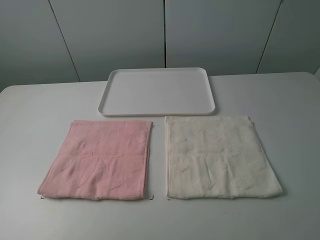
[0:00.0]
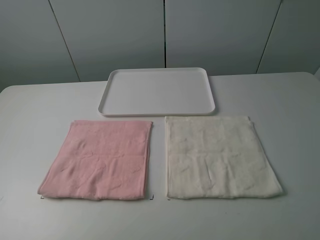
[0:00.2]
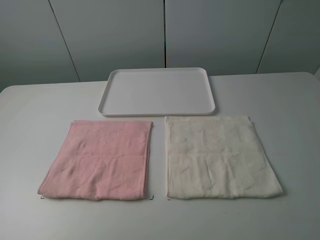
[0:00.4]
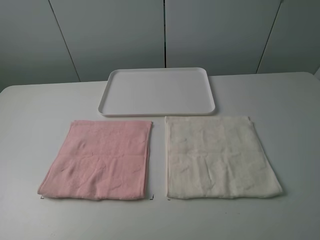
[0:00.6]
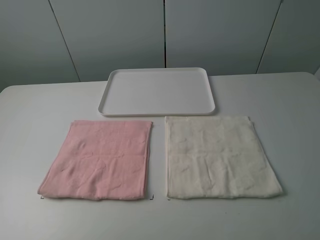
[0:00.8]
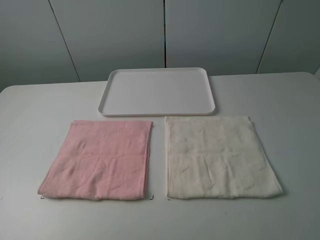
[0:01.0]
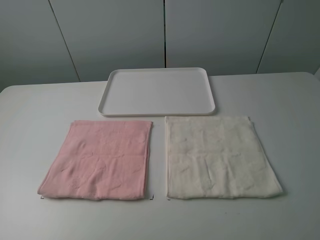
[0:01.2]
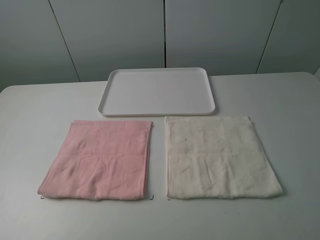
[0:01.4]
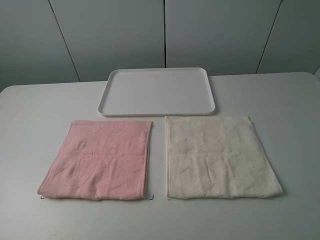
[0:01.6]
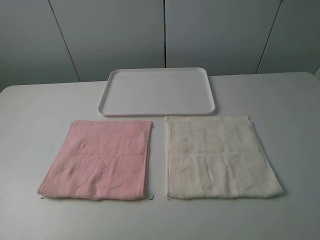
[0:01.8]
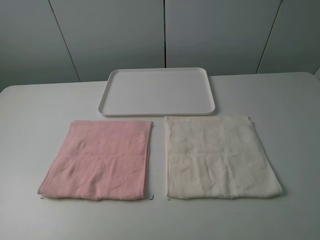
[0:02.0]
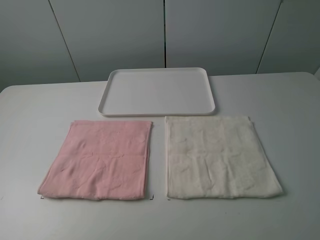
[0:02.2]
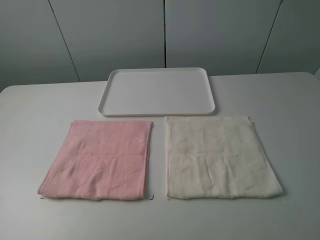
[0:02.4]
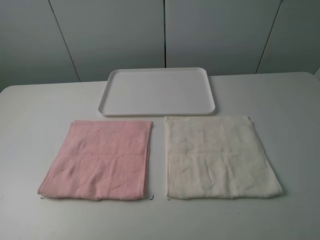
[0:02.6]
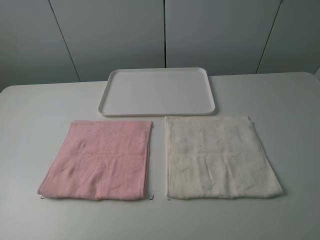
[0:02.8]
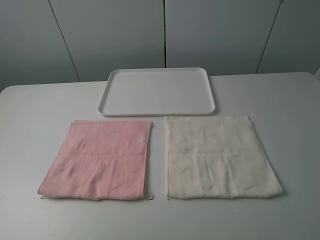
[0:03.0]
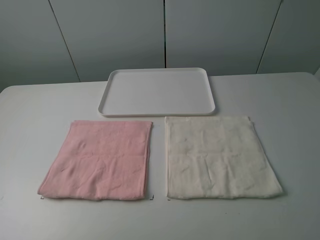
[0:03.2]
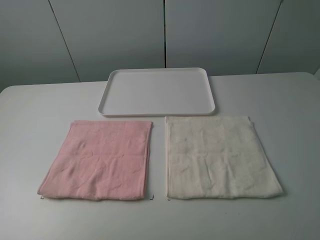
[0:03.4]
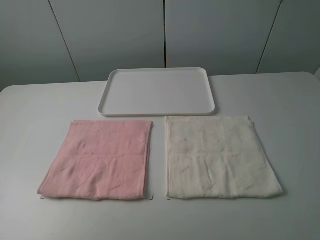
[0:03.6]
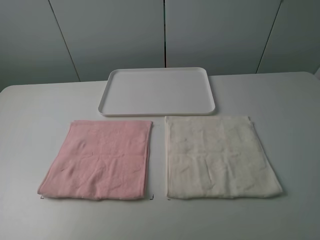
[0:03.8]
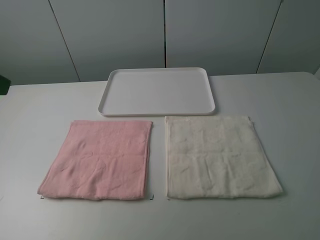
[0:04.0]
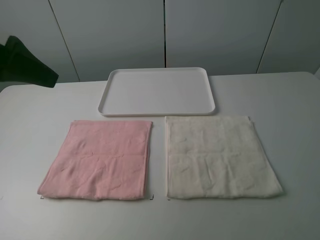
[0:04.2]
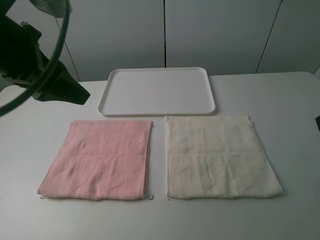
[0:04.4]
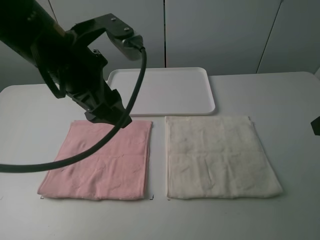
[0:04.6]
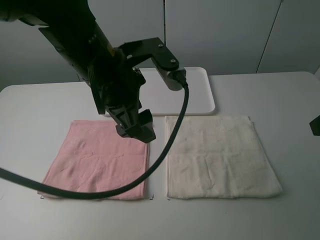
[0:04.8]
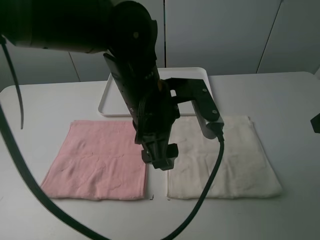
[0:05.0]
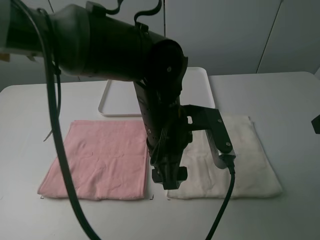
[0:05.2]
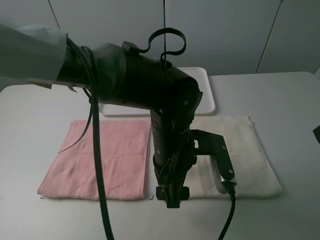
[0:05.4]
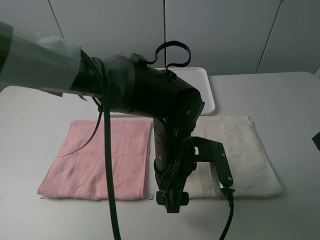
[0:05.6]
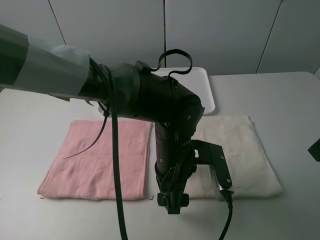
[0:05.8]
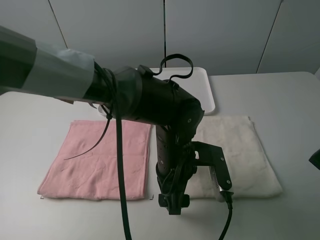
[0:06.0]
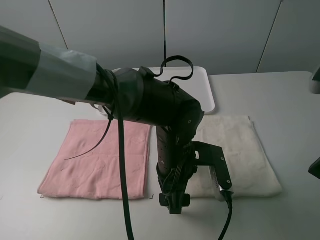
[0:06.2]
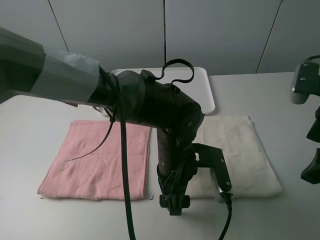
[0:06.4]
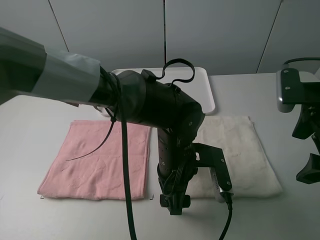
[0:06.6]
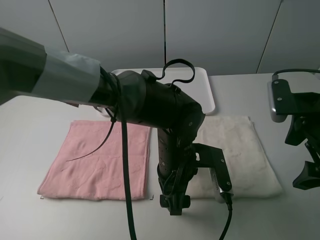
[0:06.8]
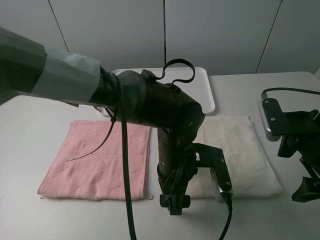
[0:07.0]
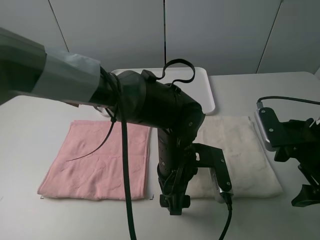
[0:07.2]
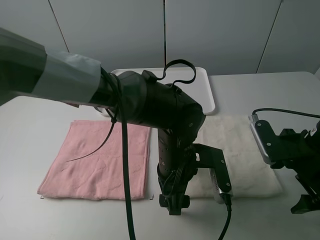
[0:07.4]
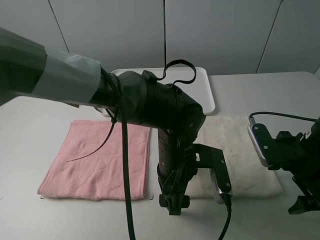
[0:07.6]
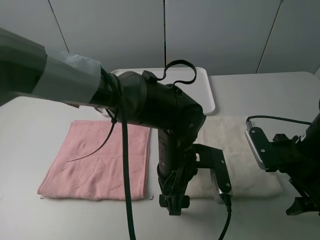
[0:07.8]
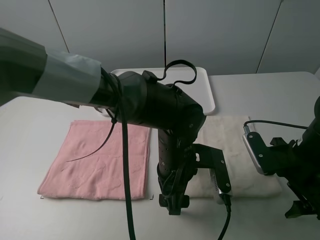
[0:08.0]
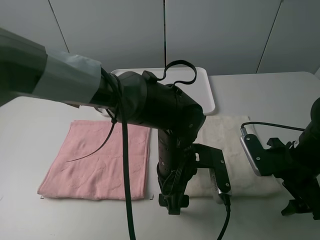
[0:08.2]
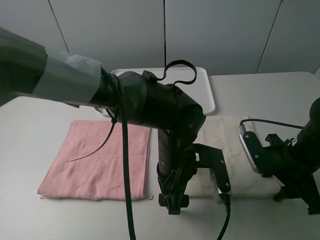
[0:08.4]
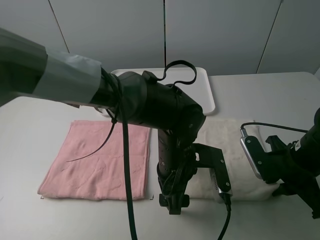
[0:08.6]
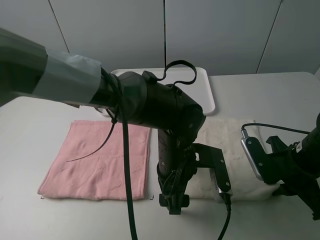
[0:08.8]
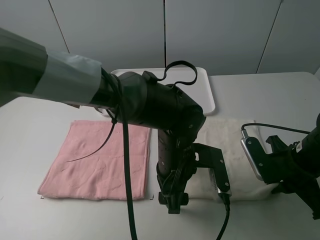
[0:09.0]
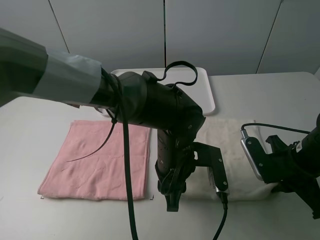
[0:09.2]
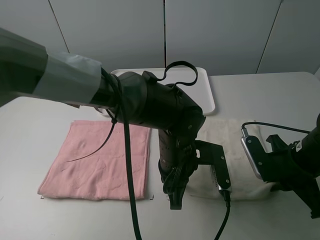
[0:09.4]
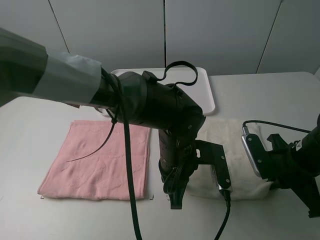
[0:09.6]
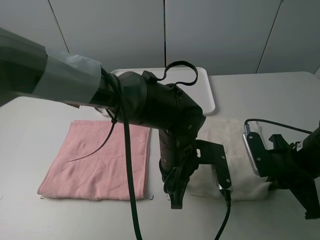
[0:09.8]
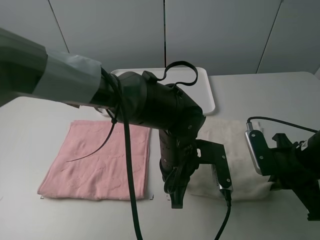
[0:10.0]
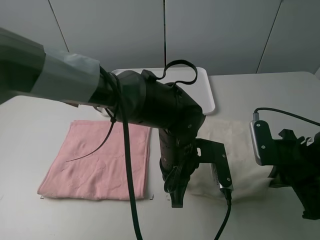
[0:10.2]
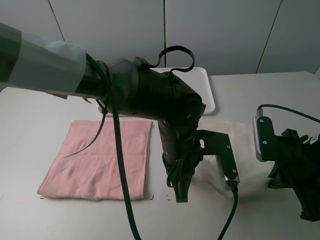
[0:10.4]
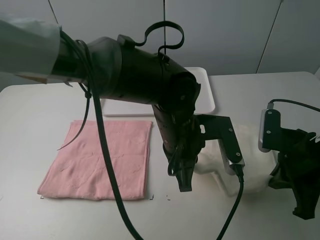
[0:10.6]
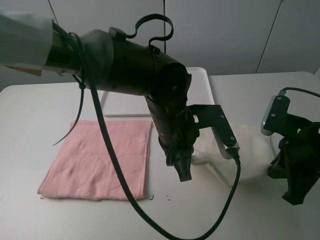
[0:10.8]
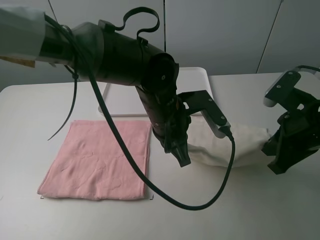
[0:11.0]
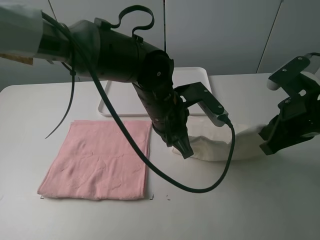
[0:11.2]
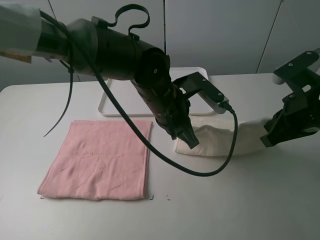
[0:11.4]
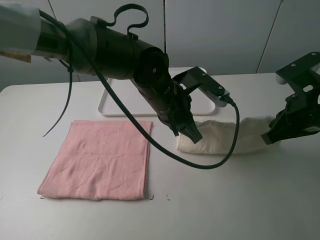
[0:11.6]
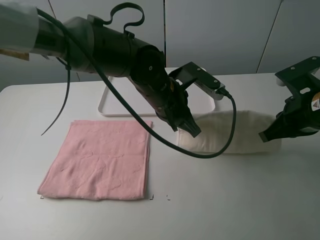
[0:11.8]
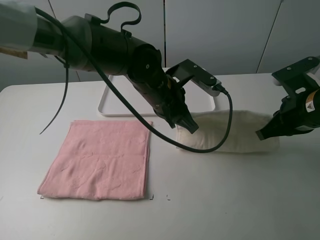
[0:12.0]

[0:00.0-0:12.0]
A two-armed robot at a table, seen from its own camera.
Task of the whole recording: fold one of the towels by two grippers and place it on the tray,then fold another towel by two grippers and place it on the folded towel.
Step, 0:00.0 to 0:09.4: Grasp the white towel with the left gripper.
0:00.0 to 0:03.0: The two grippers keep their place.
0:03.0 to 0:04.4: The left gripper moves forward and to the right, roughly 25 cm.
0:04.4 to 0:06.0: The left gripper travels to the right and downward by approximately 30 cm.
0:06.0 to 0:07.6: The right gripper heads downward, covering approximately 15 cm.
0:07.6 to 0:09.0: The right gripper closes.
0:09.0 to 0:10.4: The left gripper closes its fingers.
0:10.4 to 0:12.0: The grippers both shift forward by about 10 cm.

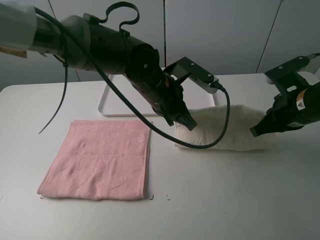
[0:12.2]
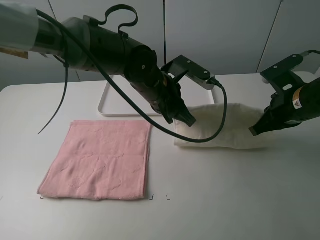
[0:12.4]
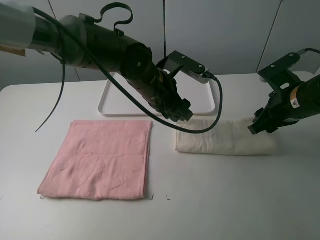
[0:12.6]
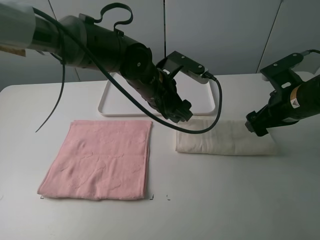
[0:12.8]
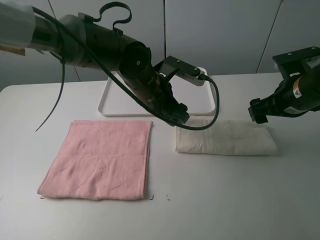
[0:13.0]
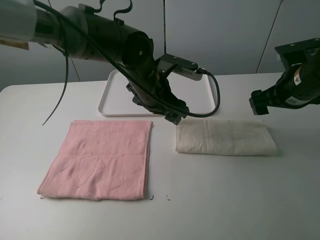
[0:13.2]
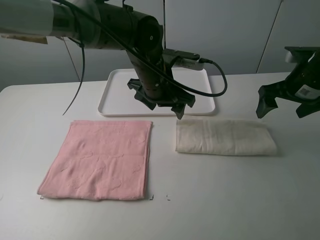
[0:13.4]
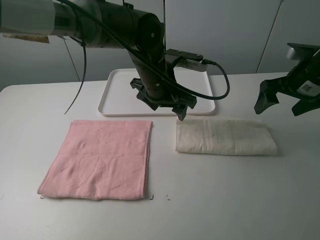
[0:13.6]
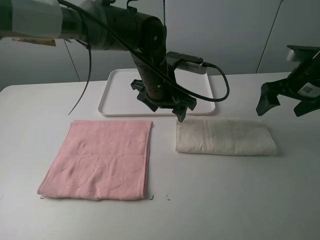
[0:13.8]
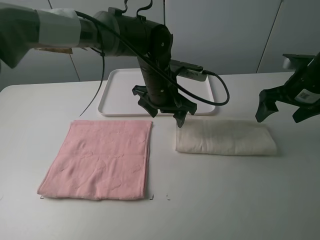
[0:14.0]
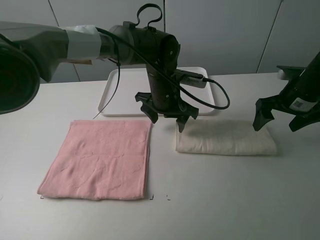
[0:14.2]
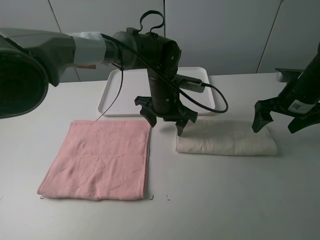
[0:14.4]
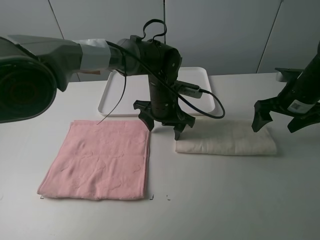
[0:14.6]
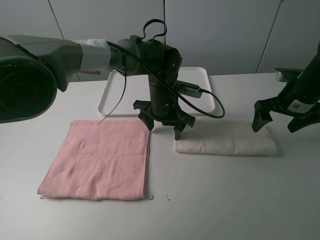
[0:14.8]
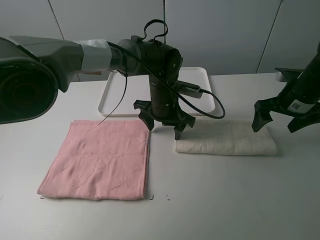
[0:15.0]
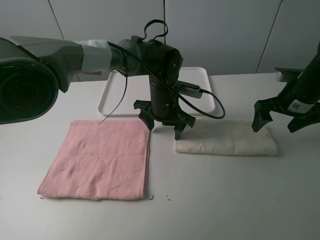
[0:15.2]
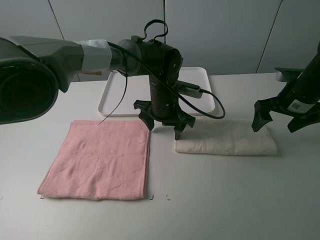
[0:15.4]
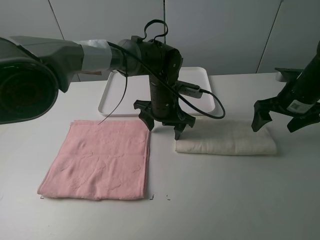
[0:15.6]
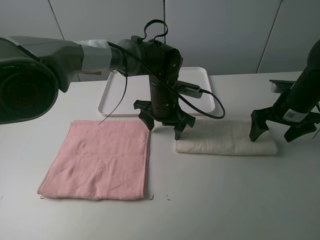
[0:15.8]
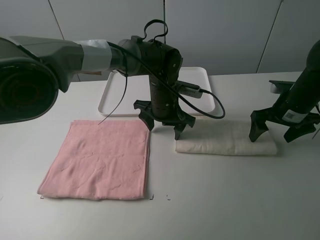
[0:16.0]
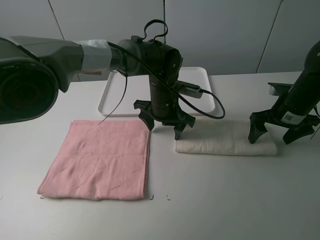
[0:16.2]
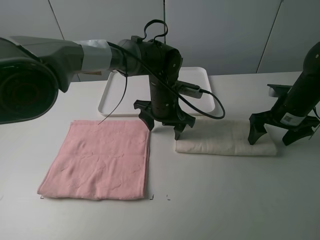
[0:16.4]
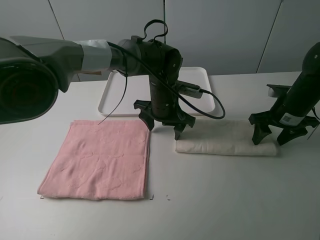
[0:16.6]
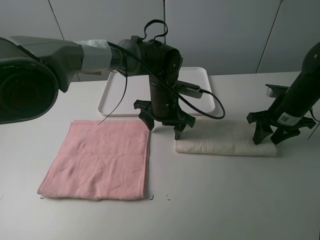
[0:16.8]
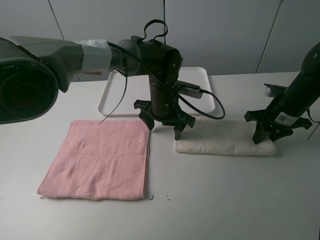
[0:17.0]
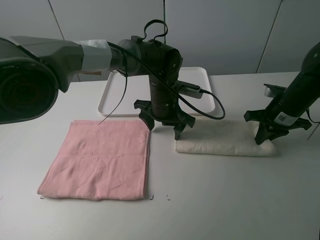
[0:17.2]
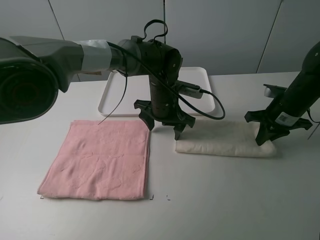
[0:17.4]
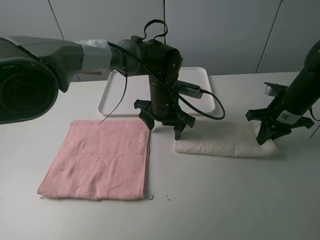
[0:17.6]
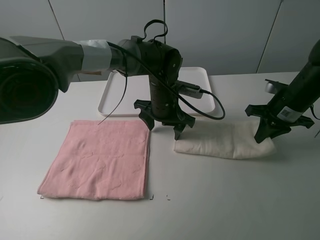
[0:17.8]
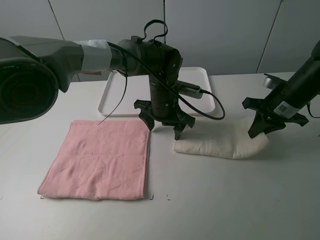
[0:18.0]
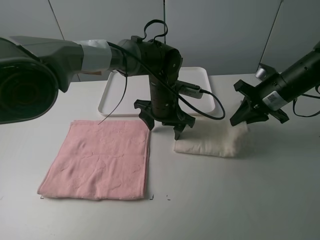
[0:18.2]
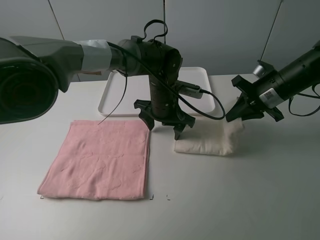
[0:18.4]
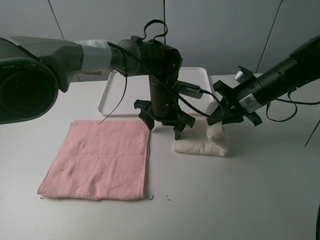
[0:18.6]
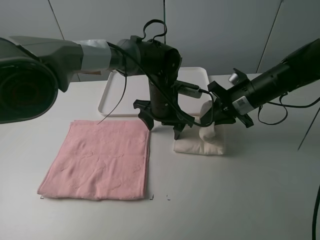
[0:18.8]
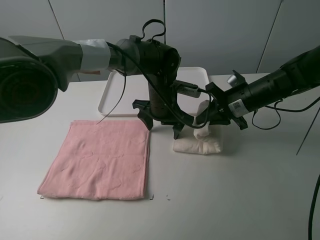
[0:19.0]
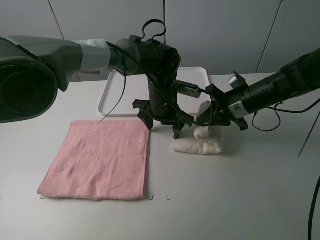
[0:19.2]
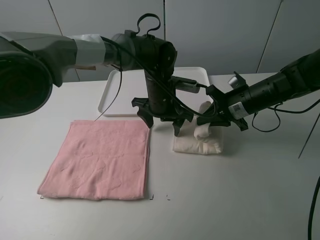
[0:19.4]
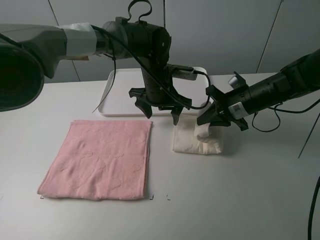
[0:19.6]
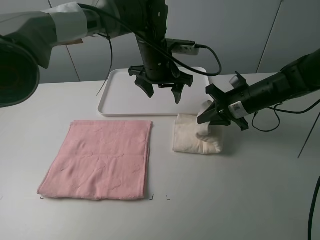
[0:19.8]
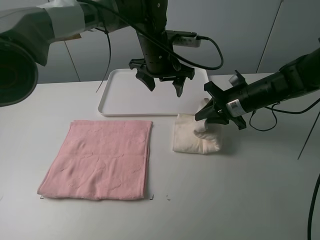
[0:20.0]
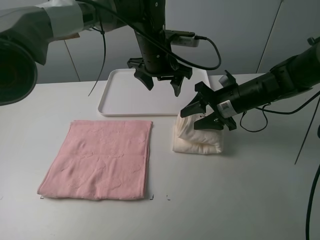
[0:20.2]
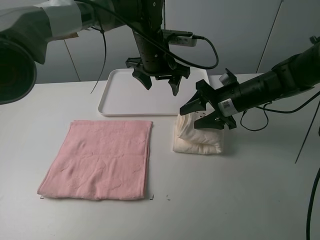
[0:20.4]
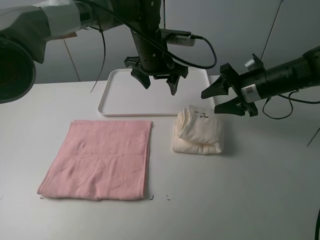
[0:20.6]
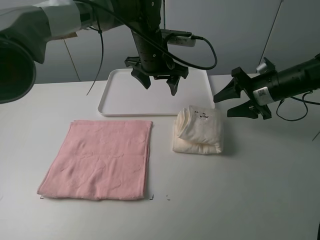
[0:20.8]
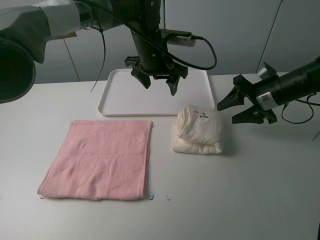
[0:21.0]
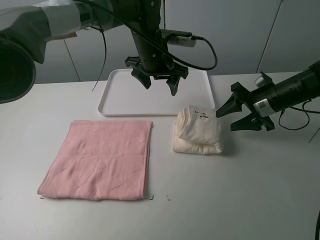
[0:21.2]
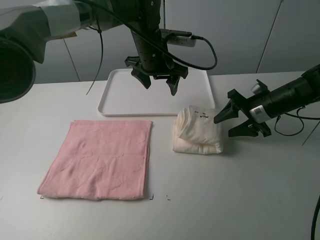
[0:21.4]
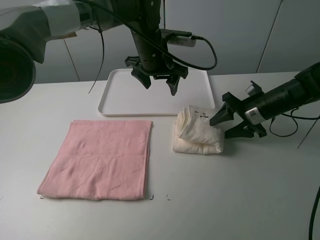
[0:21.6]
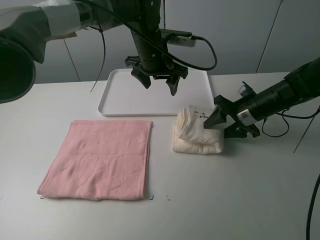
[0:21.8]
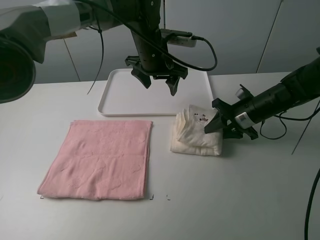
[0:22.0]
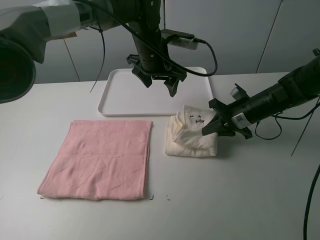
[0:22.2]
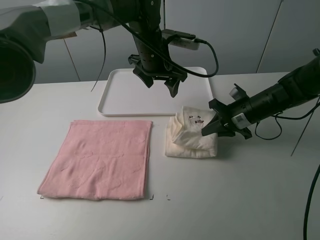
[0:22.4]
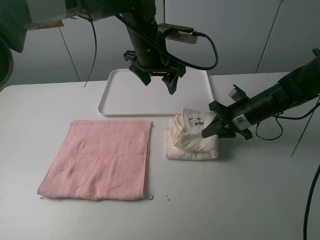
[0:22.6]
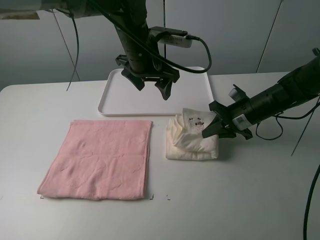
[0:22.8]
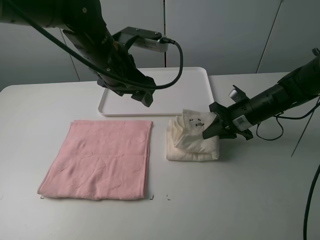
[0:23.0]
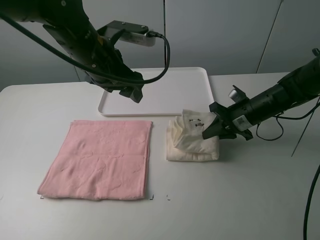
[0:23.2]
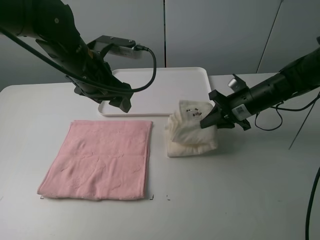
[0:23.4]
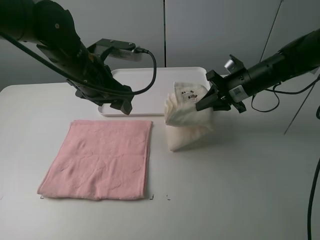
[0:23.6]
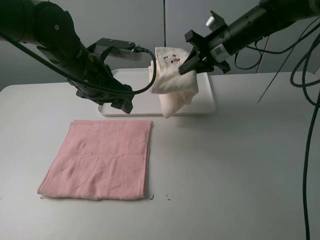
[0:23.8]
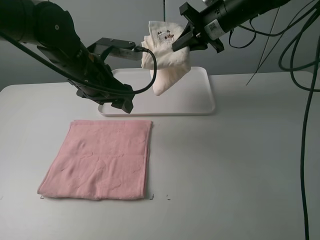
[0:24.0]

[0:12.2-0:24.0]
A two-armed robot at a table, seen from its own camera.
Task of the whole recording: fold one of the towels by two grippers and place it on the tray,then fold another towel by two grippers and place it on the folded towel.
Step, 0:13.0 to 0:15.0: Press the white towel with the left gripper.
Step, 0:15.2 to 0:17.0: Grasp the white towel with the right gripper.
Step, 0:17.2 to 0:20.4: Fold the white towel from right to left with right gripper.
Step, 0:20.6 to 0:22.2: Grasp the white towel with the right gripper.
0:12.2 to 0:13.6: The left gripper opens up. Meanwhile the right gripper moves forward, approximately 5 cm, and opens its fingers.
0:13.6 to 0:15.2: Both grippers move downward, roughly 5 cm.
0:15.2 to 0:16.6: The grippers make only small movements.
0:16.6 to 0:18.2: The right gripper shifts by about 5 cm, and closes up.
0:18.2 to 0:19.6: The left gripper ends up roughly 5 cm from where it was. The right gripper heads to the left, covering roughly 5 cm.
0:19.6 to 0:21.0: The right gripper heads to the right, covering about 5 cm, and opens. The left gripper moves upward, about 5 cm.
0:21.0 to 0:22.6: The right gripper ends up some 5 cm from where it was, and closes its fingers.
0:22.6 to 0:24.0: The left gripper is displaced to the left and backward by approximately 15 cm. The right gripper travels upward, forward and to the left by about 20 cm.
